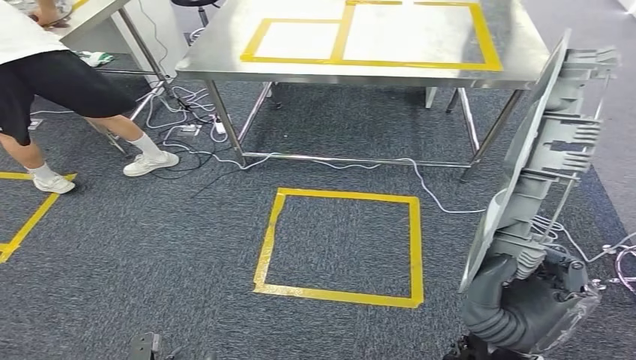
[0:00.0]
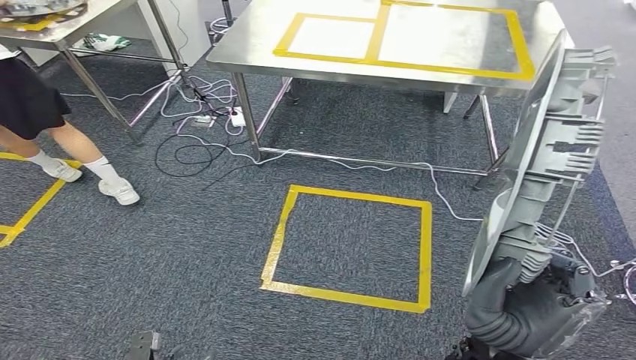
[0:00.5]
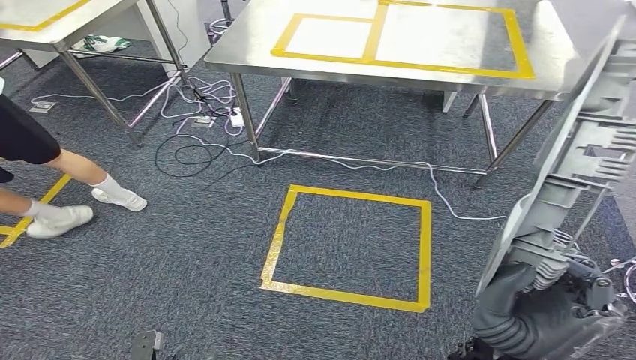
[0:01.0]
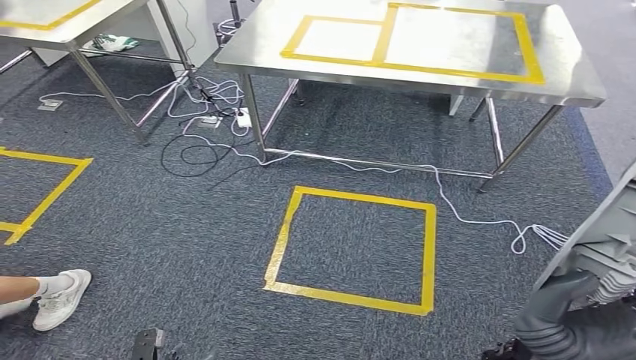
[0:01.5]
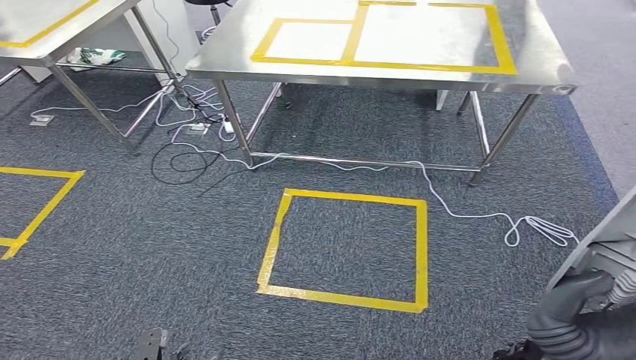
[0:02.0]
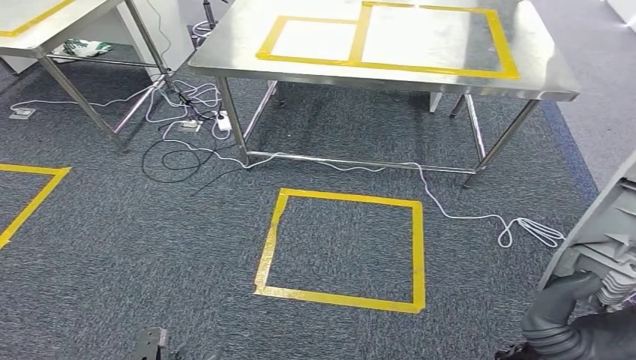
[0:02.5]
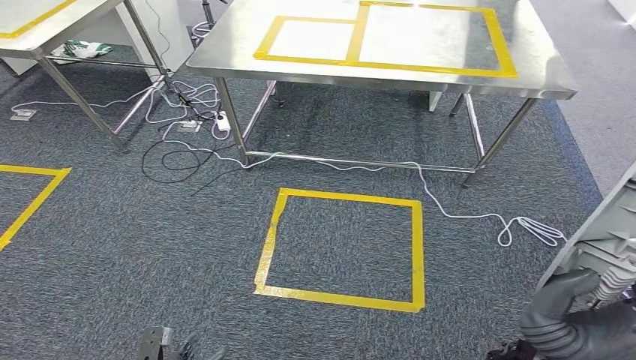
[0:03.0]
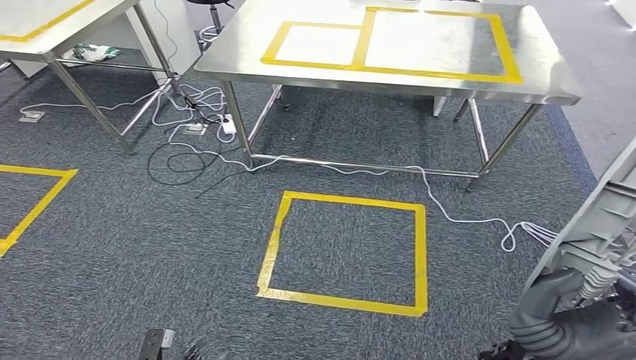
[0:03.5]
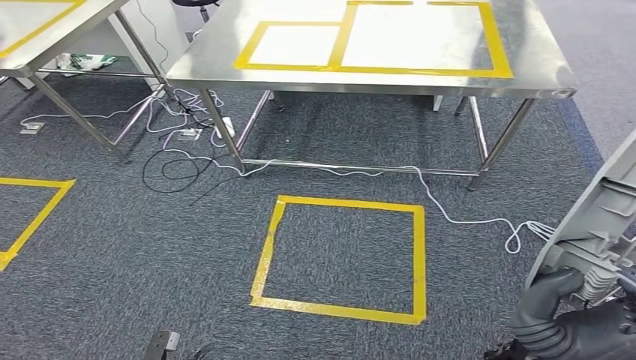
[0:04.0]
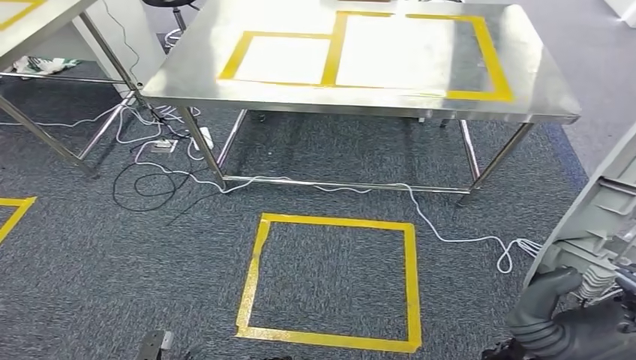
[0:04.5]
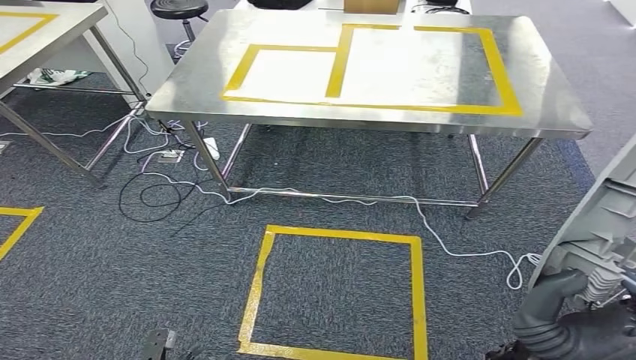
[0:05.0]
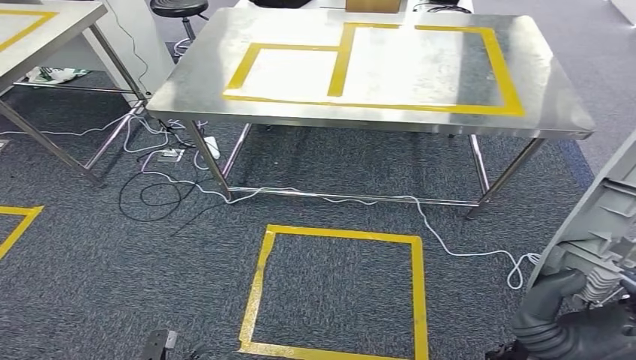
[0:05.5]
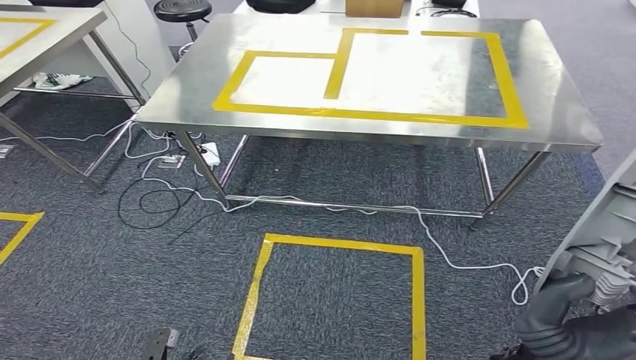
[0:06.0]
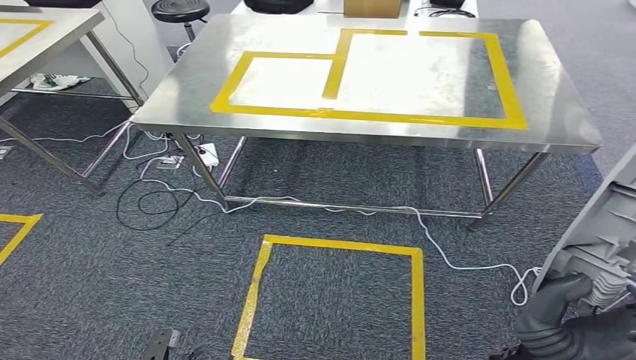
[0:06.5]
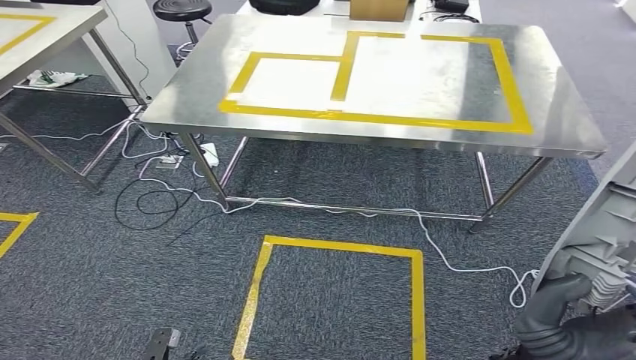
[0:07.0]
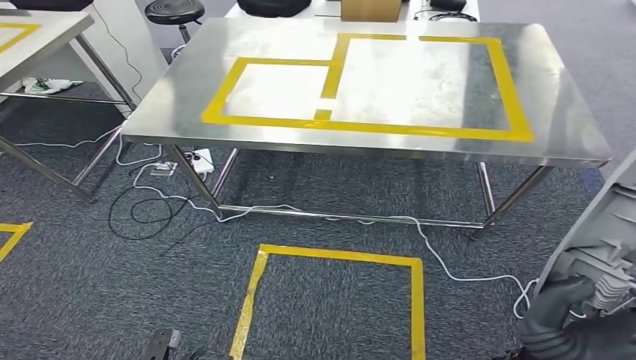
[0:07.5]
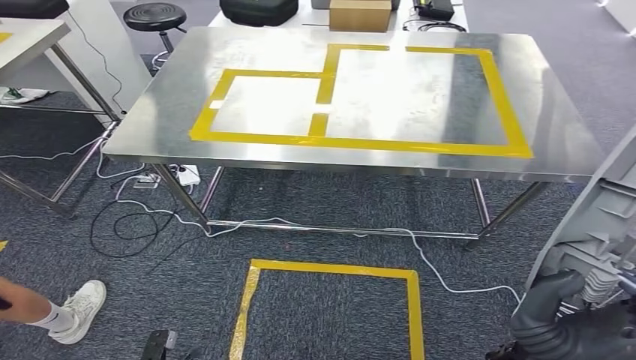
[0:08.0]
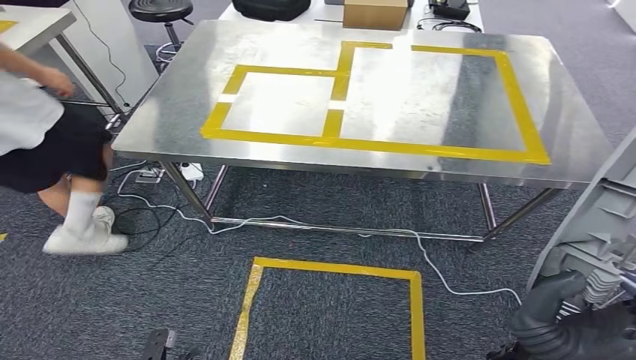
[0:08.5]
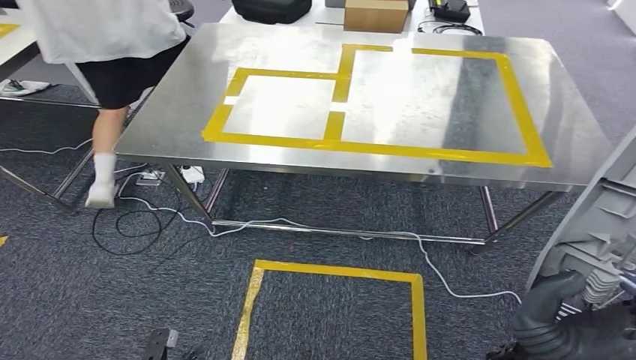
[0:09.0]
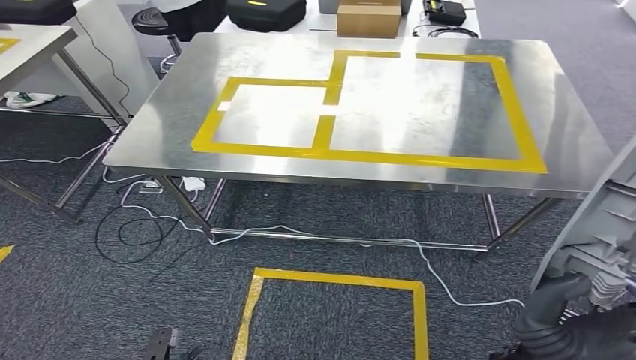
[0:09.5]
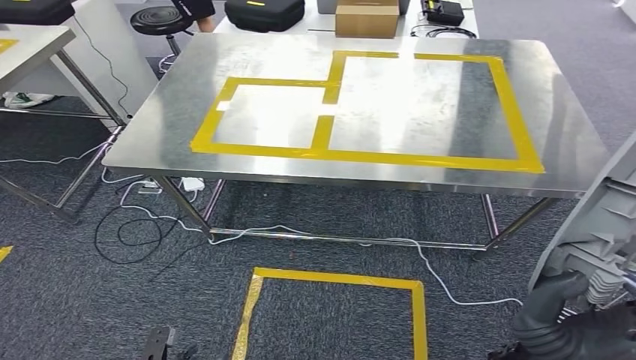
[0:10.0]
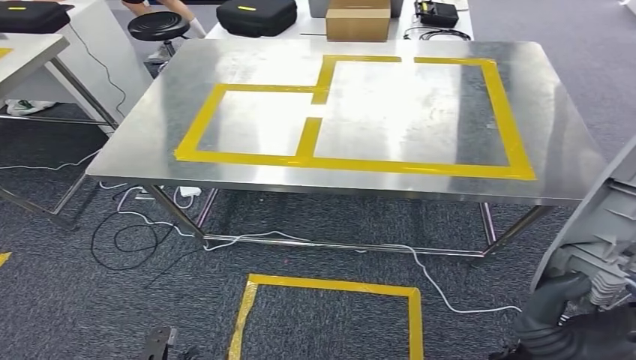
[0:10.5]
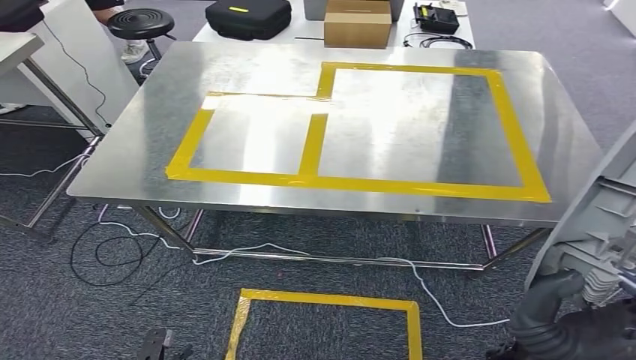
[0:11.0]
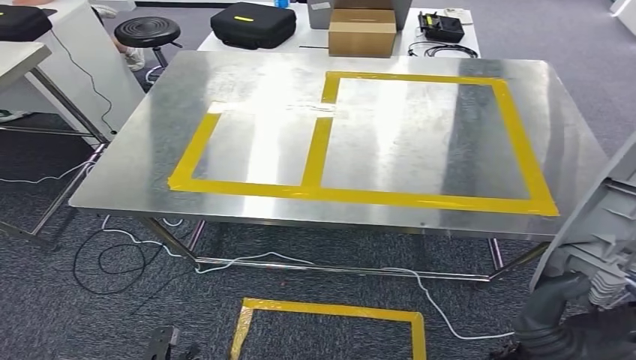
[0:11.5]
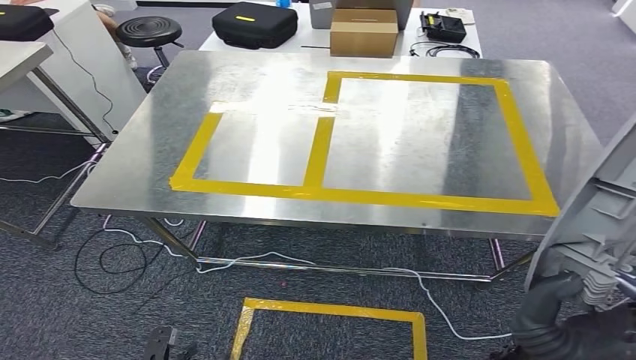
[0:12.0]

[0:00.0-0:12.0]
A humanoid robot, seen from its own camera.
Step, 0:00.0 to 0:11.5: Move the small component to the workbench.

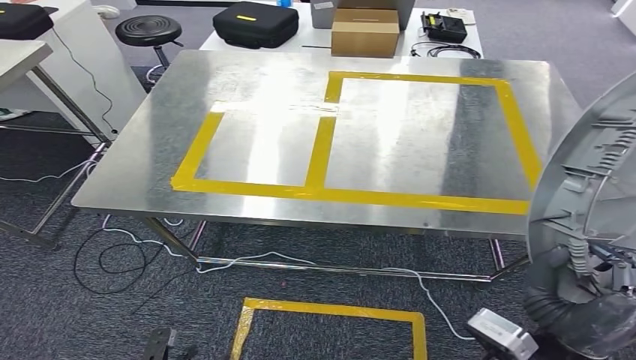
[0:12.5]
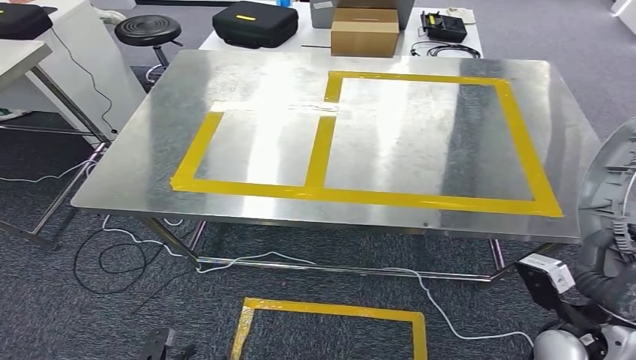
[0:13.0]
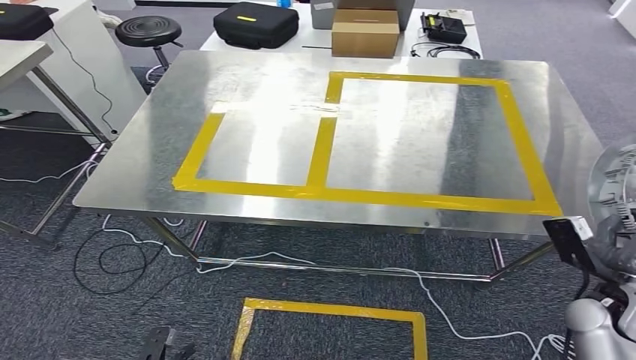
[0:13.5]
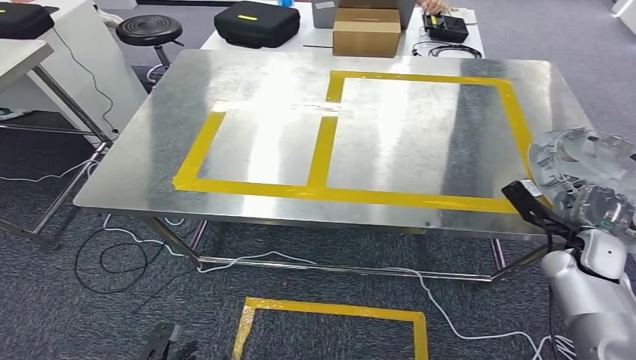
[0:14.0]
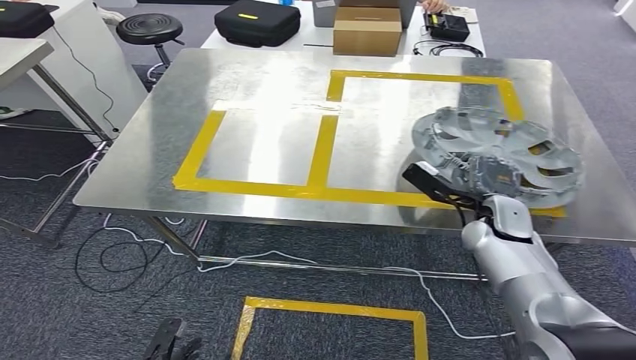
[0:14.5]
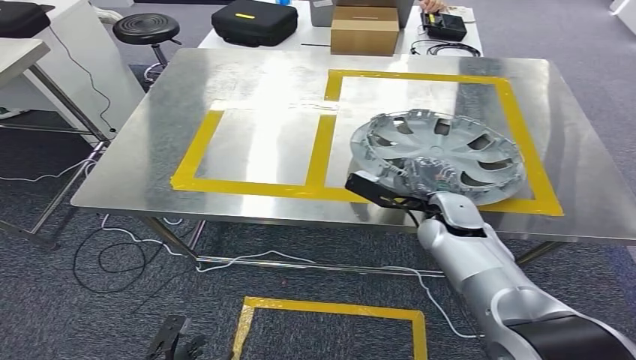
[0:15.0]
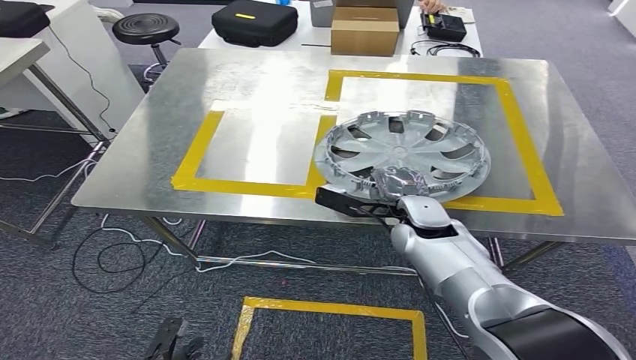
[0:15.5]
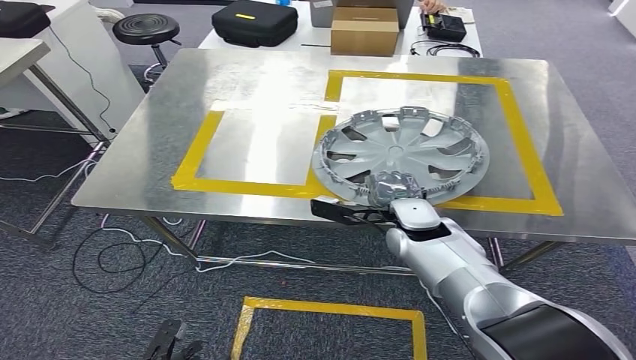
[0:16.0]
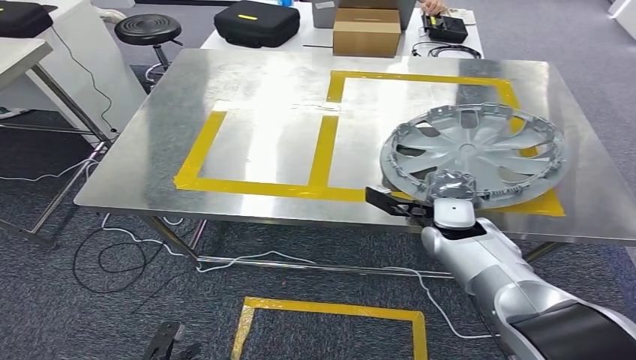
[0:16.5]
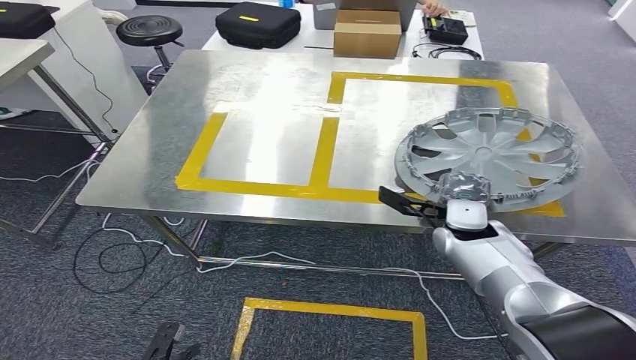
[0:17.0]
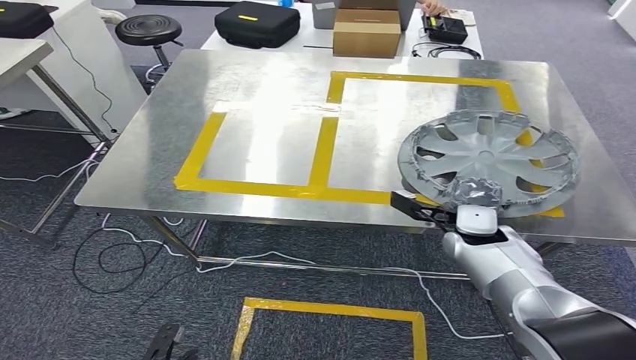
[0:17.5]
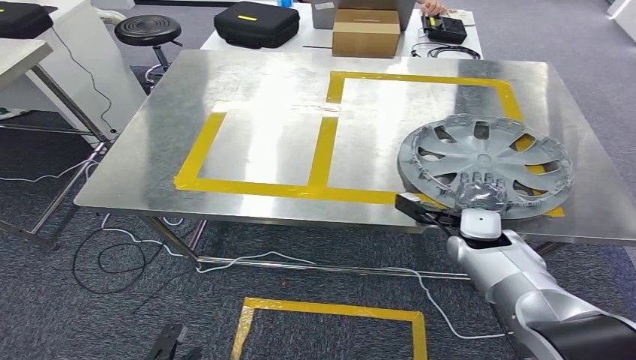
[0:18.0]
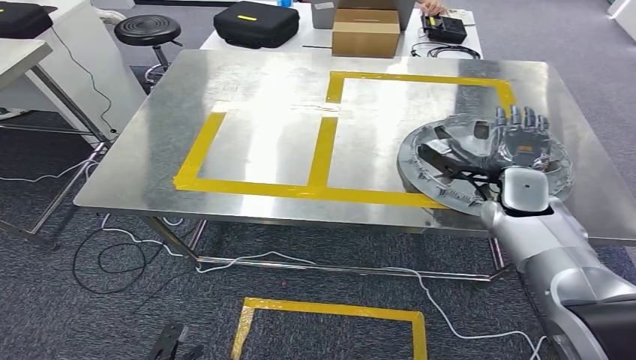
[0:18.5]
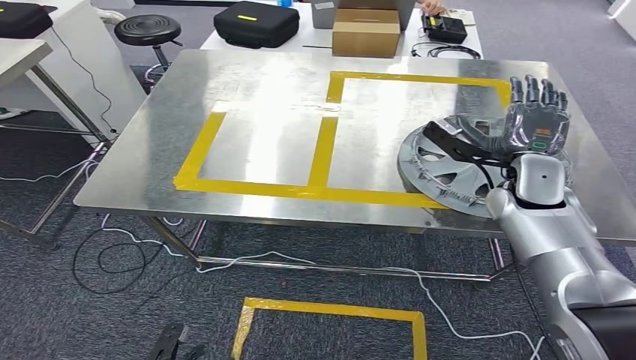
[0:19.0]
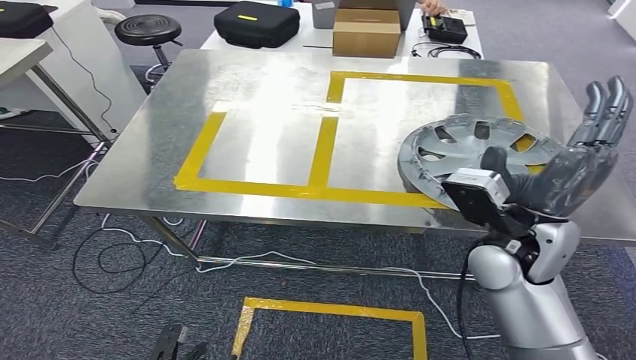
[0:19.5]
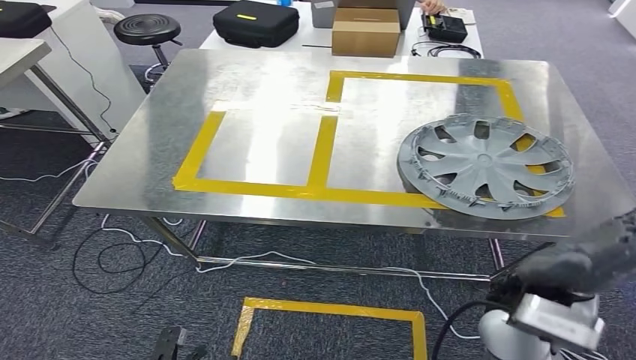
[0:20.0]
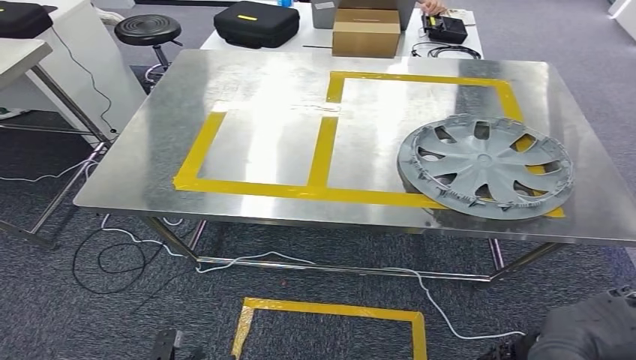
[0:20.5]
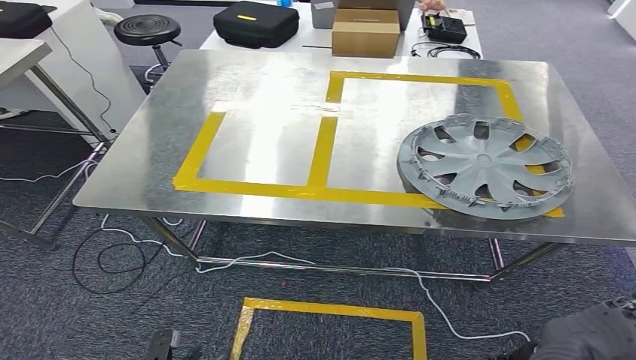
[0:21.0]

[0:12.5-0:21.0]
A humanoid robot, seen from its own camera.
Step, 0:12.5 to 0:20.5: Insert the small component into the corresponding slot on the workbench.
0:12.5 to 0:14.5: The right hand goes approximately 25 cm forward.
0:14.5 to 0:16.5: The right hand shifts approximately 5 cm to the left.
0:16.5 to 0:19.0: The right hand shifts approximately 10 cm upward and to the right.
0:19.0 to 0:21.0: The right hand heads backward, covering roughly 30 cm.
